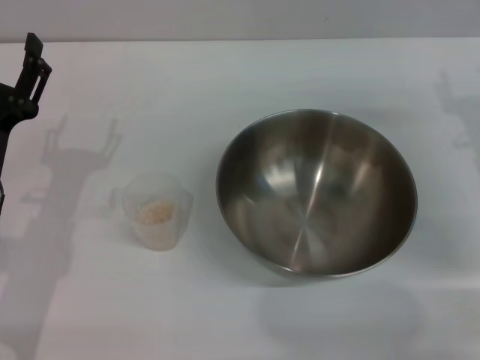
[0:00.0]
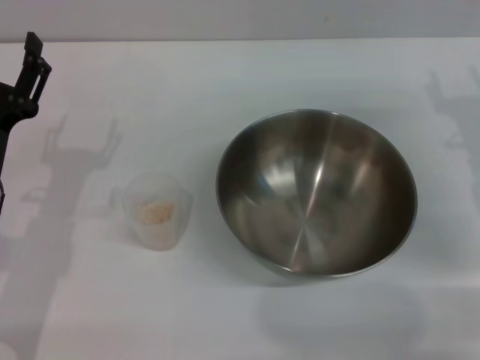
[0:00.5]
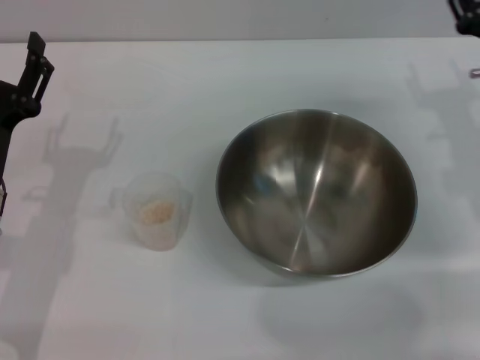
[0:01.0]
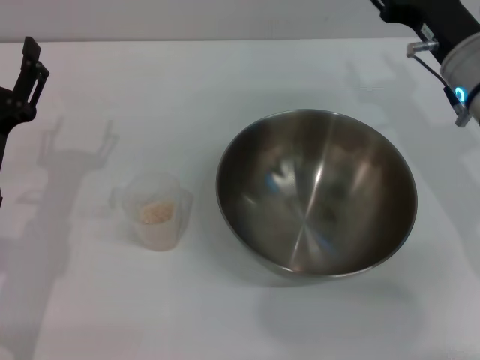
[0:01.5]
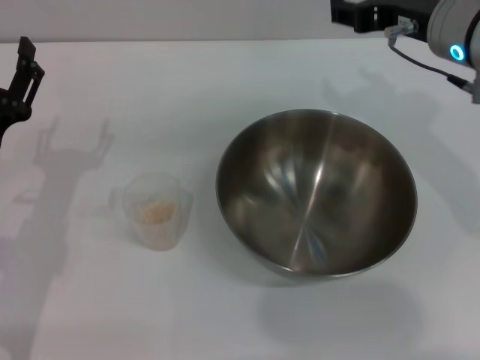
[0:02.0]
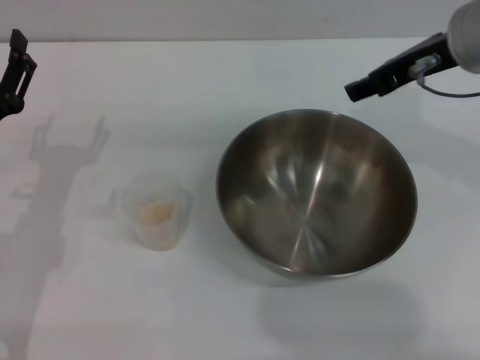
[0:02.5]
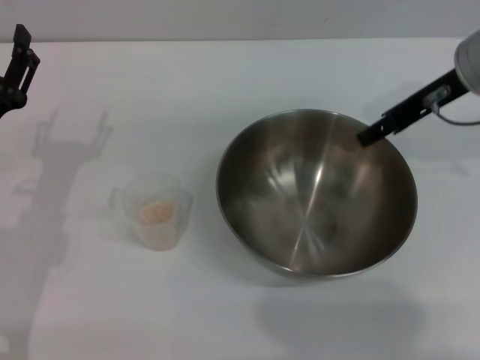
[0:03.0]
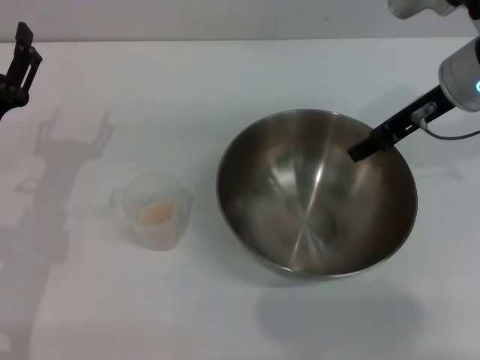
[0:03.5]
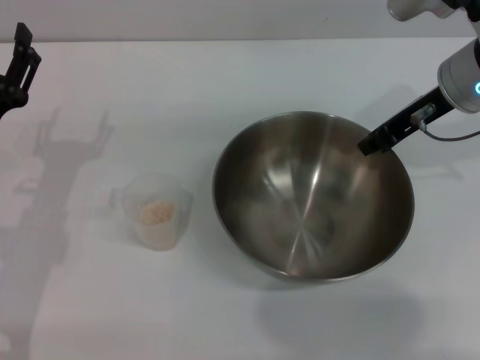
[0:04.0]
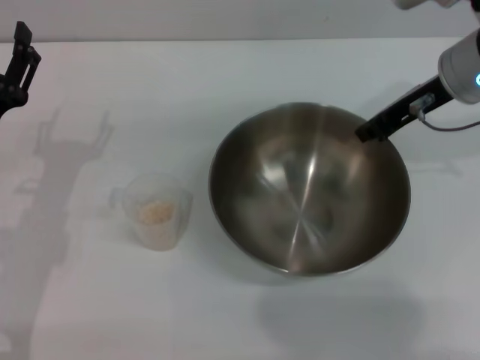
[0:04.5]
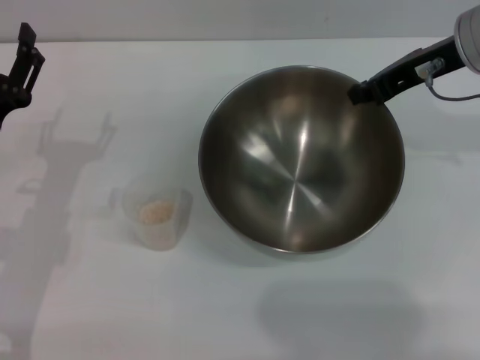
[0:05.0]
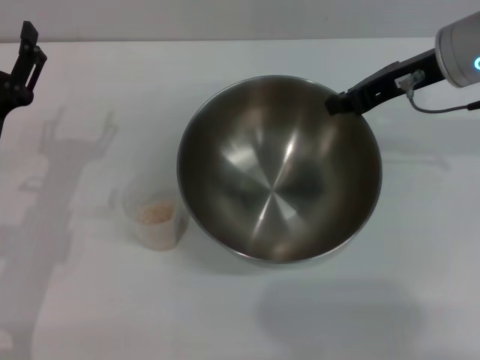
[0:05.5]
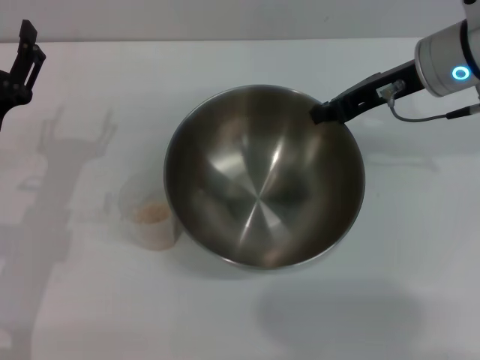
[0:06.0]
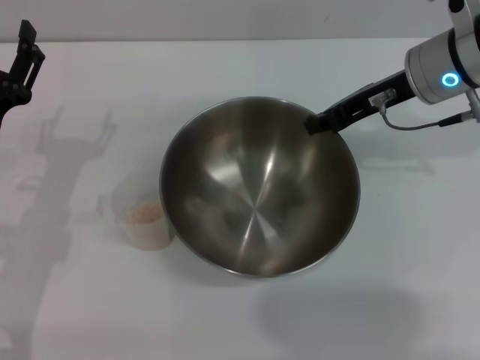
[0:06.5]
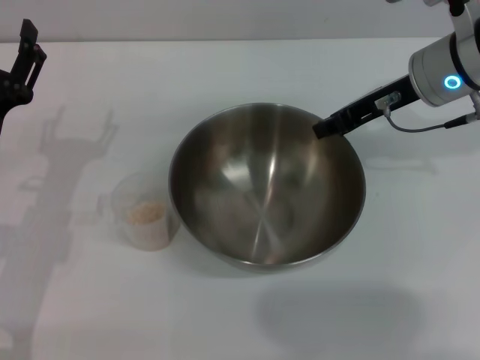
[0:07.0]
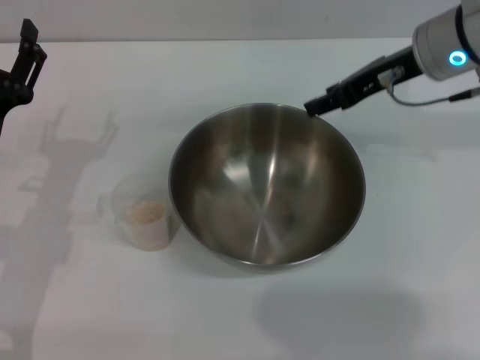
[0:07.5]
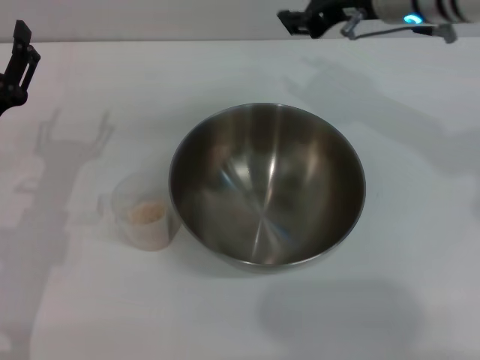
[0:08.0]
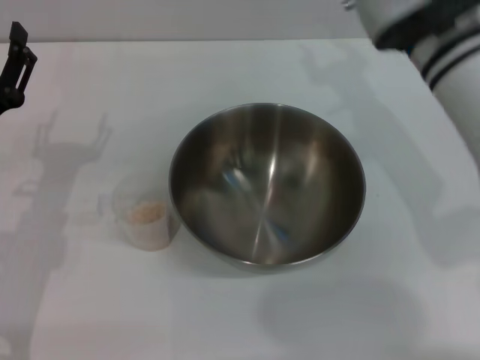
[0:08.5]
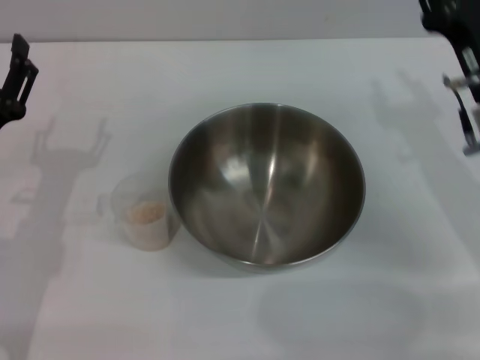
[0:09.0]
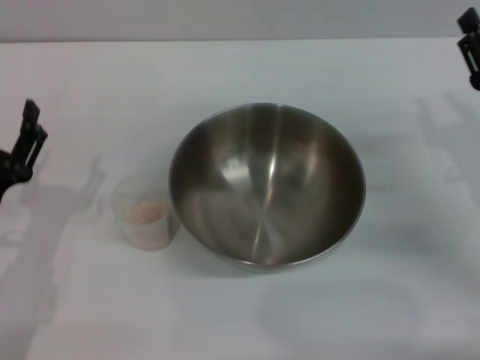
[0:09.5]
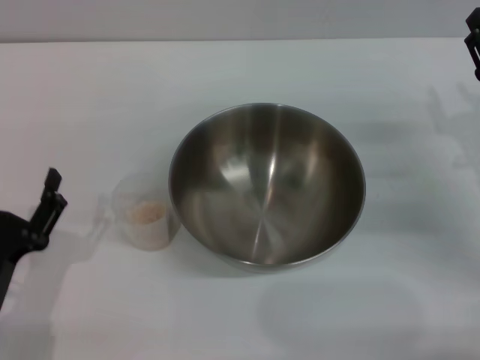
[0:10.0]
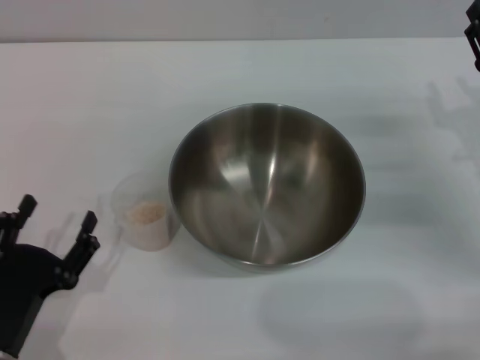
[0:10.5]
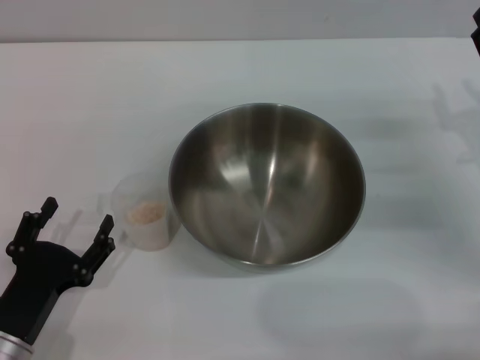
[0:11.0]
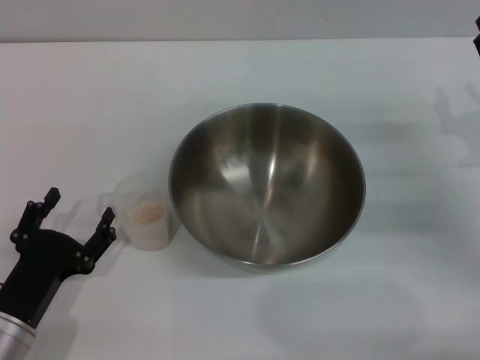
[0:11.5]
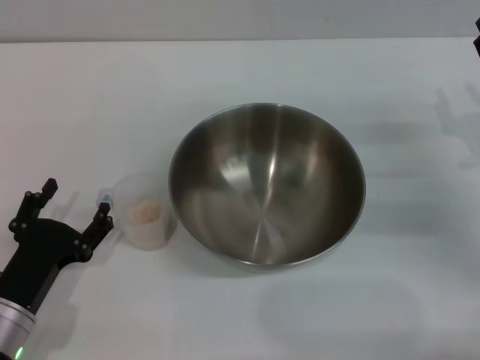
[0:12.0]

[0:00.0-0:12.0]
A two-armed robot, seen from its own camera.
Task of the whole recording: Place the bowl in the middle of the table with one hand and pour the rice from the grain cup into it with the other hand.
Step, 0.0 to 4.5 s: Pick up the bowl with the right gripper.
Step, 5.5 to 7.5 s: Place the bowl in the center of view with the right gripper.
0.0 to 2.0 s: The right gripper shifts about 15 cm upward and to the left.
2.0 to 4.0 s: The right gripper changes place by some 5 cm, and closes up.
4.0 to 6.0 s: The right gripper closes.
6.0 to 8.0 s: The right gripper changes place by roughly 5 cm, and opens its fingers.
8.0 to 10.0 s: The left gripper shifts some 15 cm backward and downward. The right gripper heads downward, to the right and backward, covering approximately 25 cm.
10.0 to 12.0 s: The grippers move only a little.

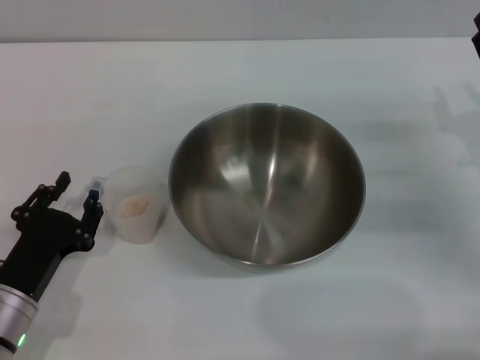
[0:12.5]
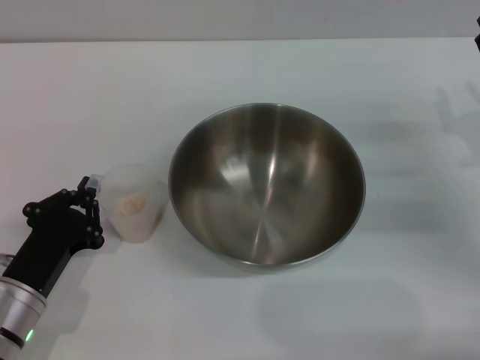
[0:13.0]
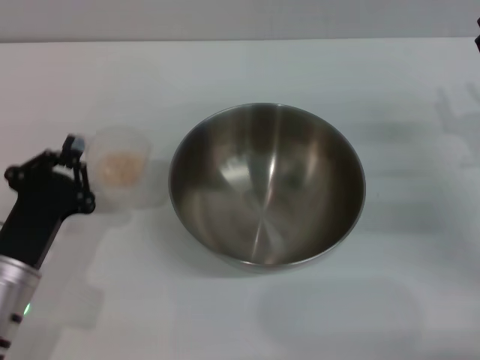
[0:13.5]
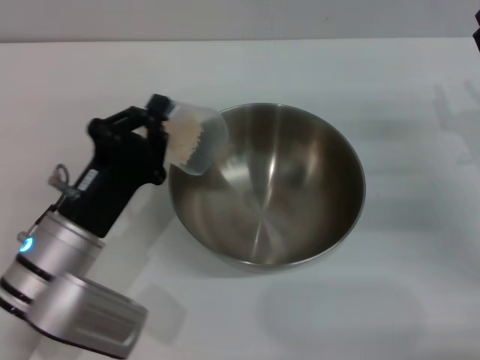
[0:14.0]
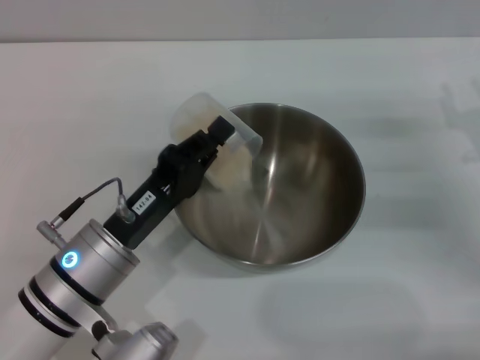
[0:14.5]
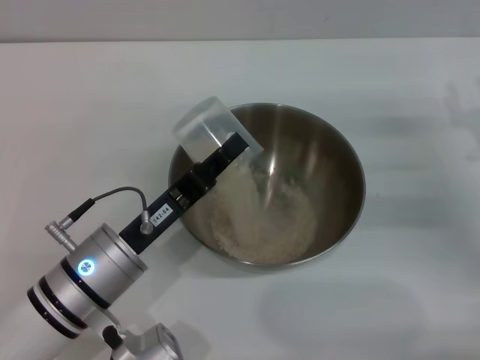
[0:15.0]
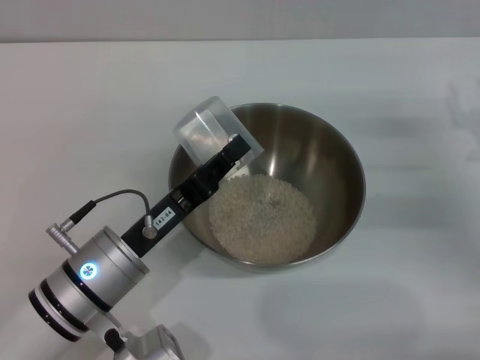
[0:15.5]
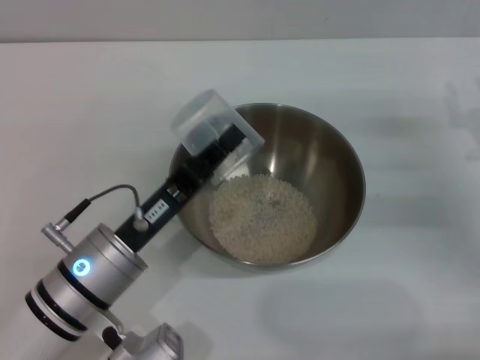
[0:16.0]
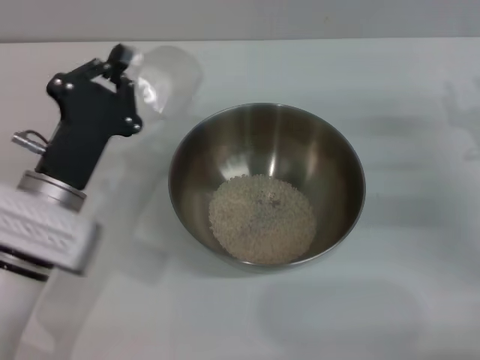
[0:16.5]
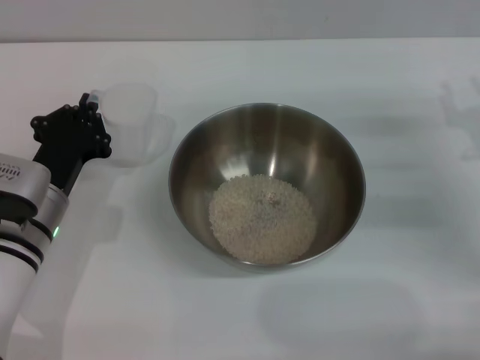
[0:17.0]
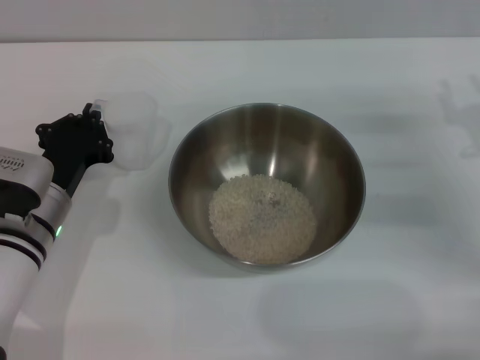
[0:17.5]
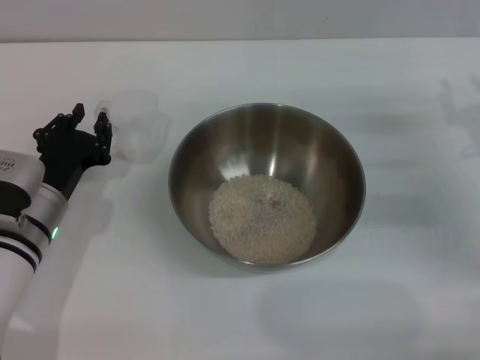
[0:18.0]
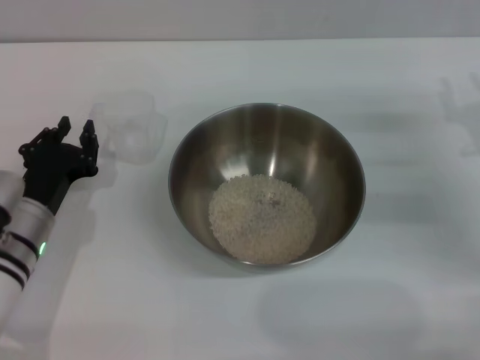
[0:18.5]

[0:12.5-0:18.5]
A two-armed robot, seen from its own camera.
Task of the whole recording: Place the bowl in the middle of the table with one hand and pour the rice from the grain cup into it with the other hand.
Step, 13.5 to 16.0 s: Pour the rice from the cup into the bowl with the left gripper.
Step, 16.5 to 18.5 s: Place the cup on the table with the left gripper.
12.5 to 14.5 s: The left gripper goes roughly 10 cm to the right and upward, and closes up.
16.5 to 18.5 s: The left gripper is displaced downward by some 5 cm.

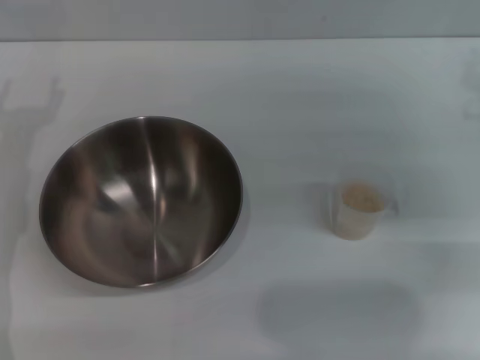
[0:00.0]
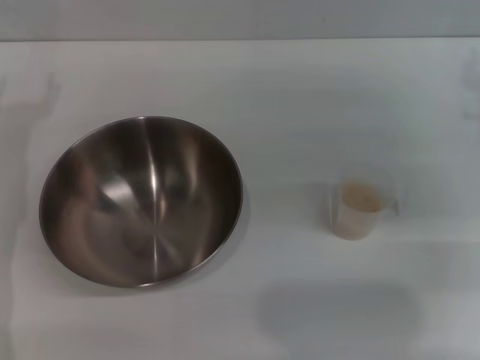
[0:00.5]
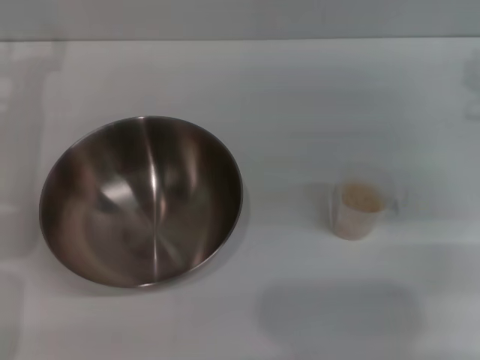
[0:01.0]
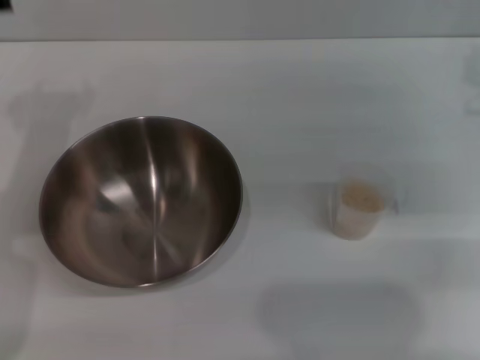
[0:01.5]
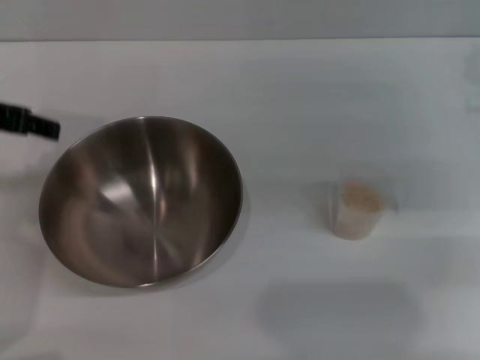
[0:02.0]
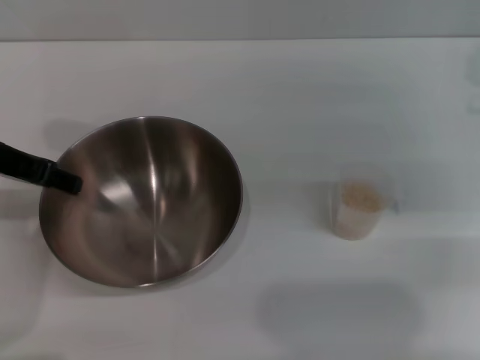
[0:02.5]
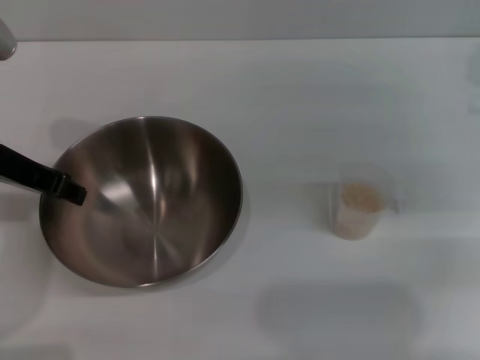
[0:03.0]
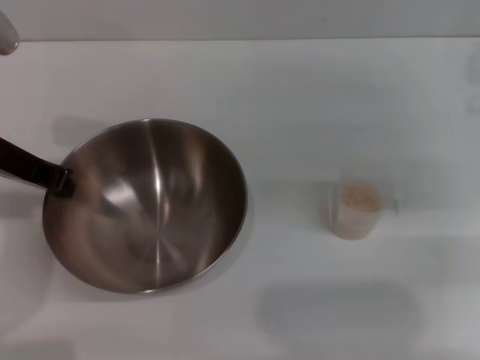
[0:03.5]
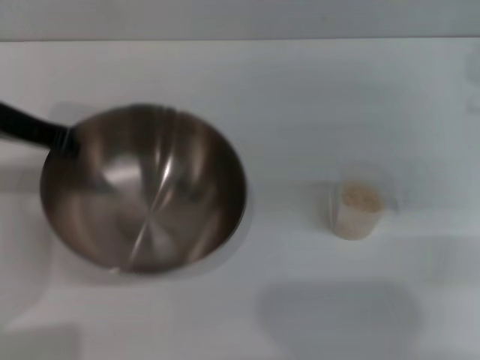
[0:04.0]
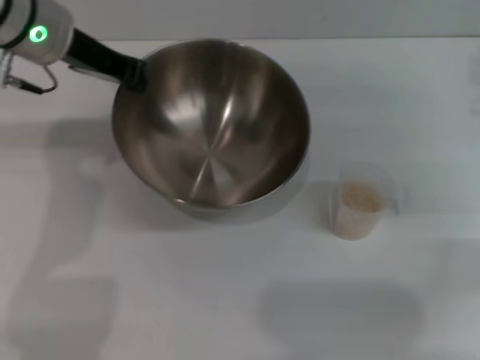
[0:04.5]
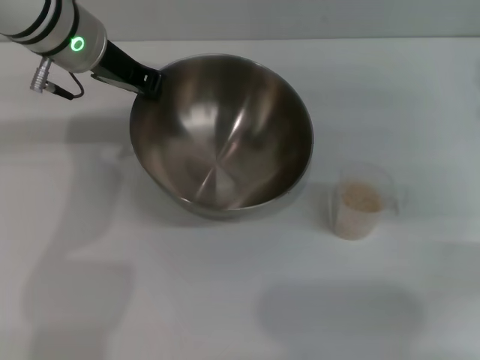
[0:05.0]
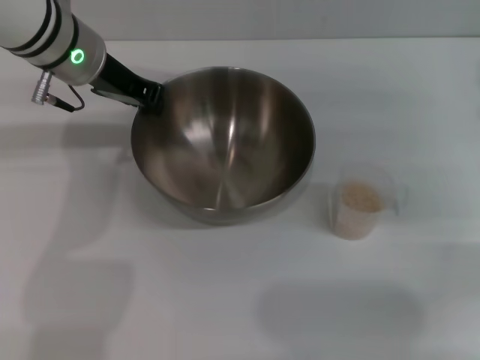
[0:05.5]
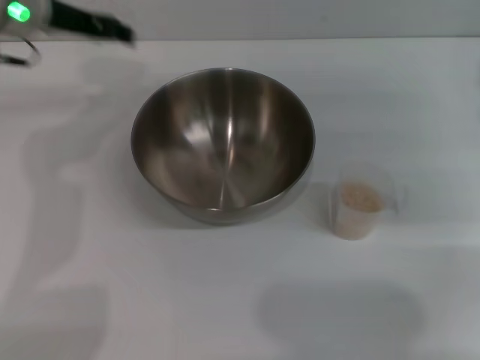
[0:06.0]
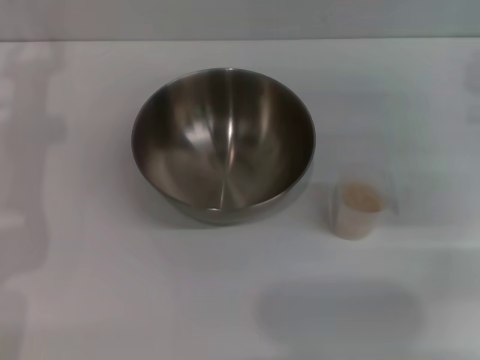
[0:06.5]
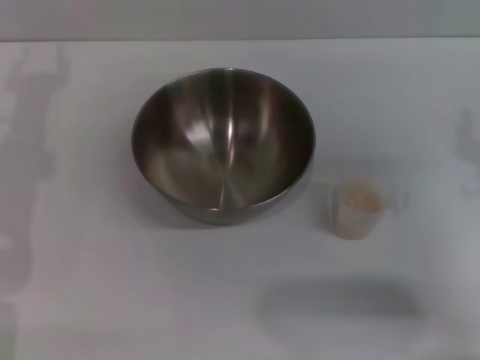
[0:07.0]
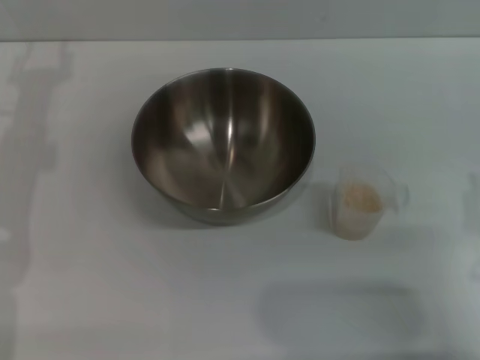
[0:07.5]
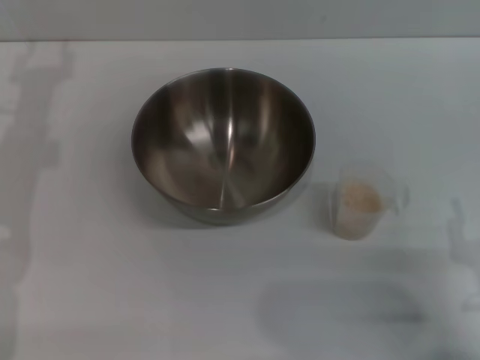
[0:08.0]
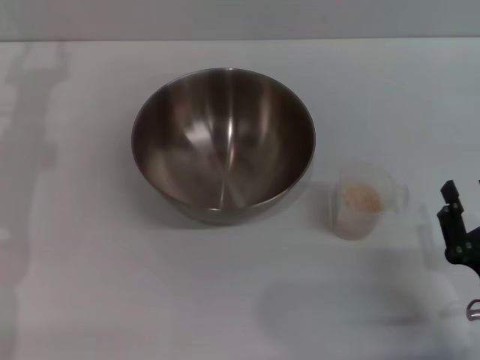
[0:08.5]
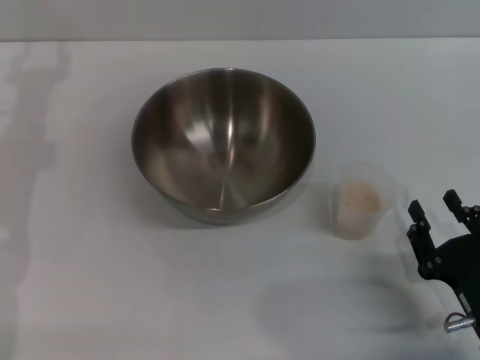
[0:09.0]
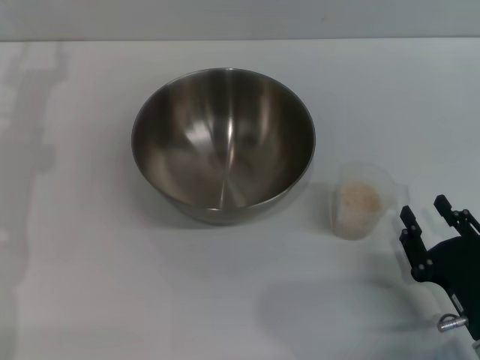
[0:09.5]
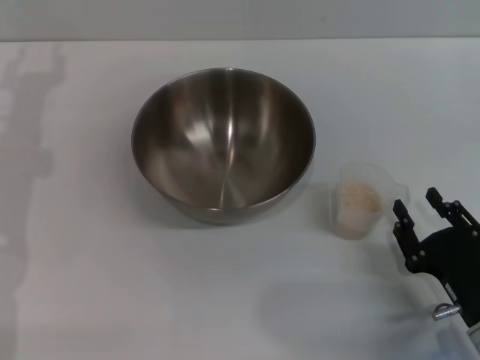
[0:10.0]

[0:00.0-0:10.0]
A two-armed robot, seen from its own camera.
Task of the whole recording: Place the bowl in the middle of the table with one hand and pour the rice from the grain cup into it with the other hand.
Step, 0.0 to 4.5 s: Pick up the bowl with the left gripper.
Step, 5.0 to 6.0 s: Place the bowl in the center of view with the left gripper.
0.0 to 2.0 s: The left gripper goes some 10 cm upward.
2.0 to 4.0 s: The left gripper closes.
4.0 to 6.0 s: The left gripper travels forward by about 5 cm, and opens up.
6.0 to 8.0 s: The left gripper heads to the left, backward and downward, covering roughly 10 cm; the right gripper moves backward and downward, approximately 25 cm.
